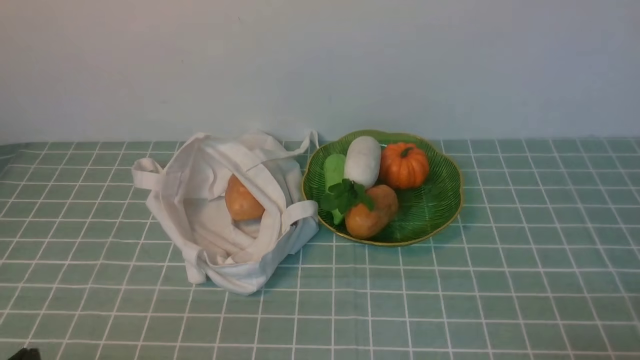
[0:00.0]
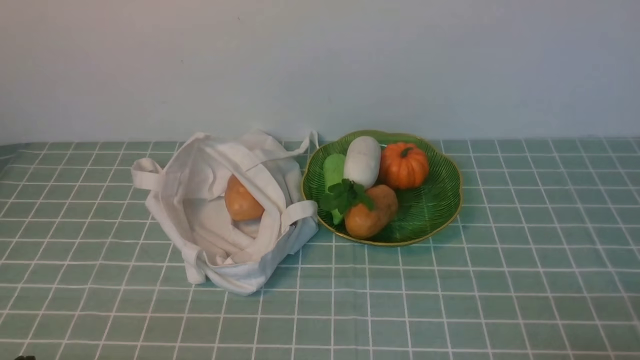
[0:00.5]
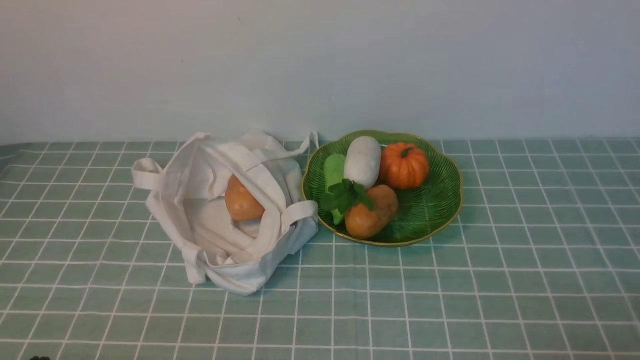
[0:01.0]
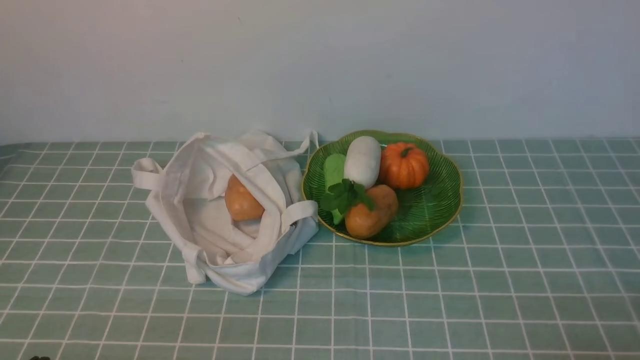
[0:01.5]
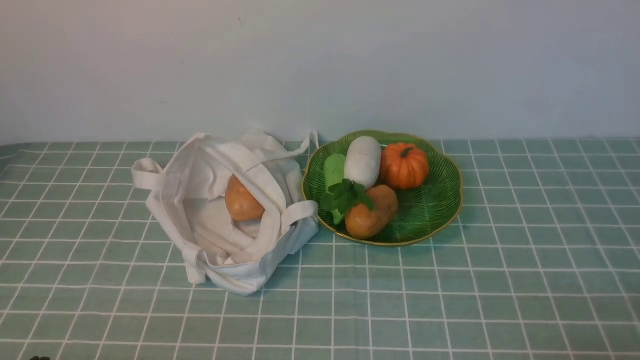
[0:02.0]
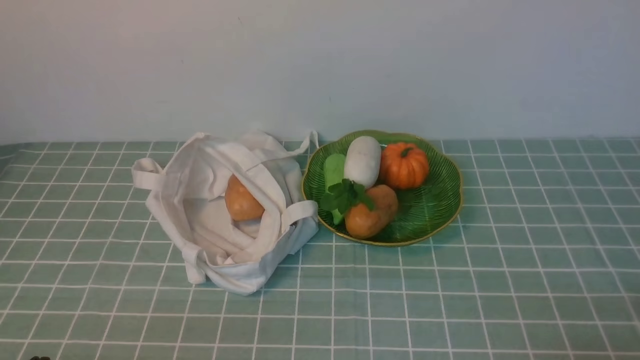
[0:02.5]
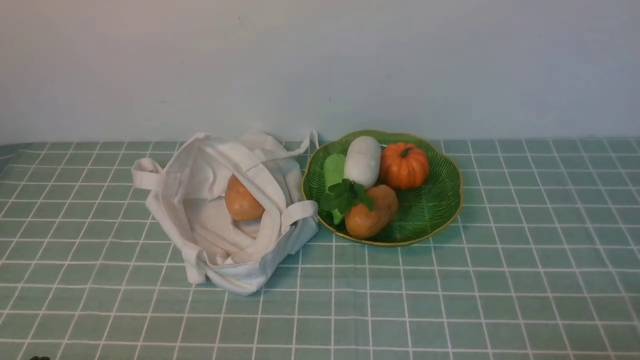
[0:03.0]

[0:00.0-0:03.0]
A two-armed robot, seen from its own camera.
Task of the whole recording: take vegetables from cloth bag on blue coffee tablecloth place on plate.
0:01.5 to 0:03.0: Both grippers stay about where they are.

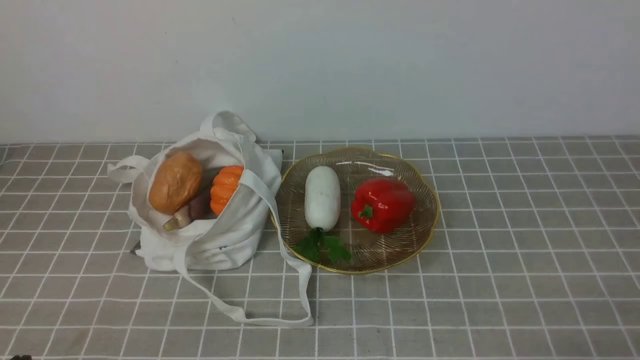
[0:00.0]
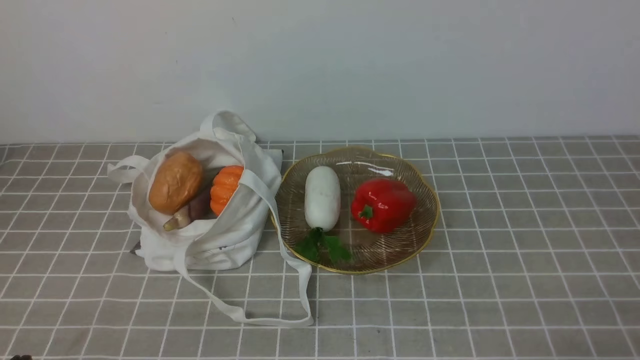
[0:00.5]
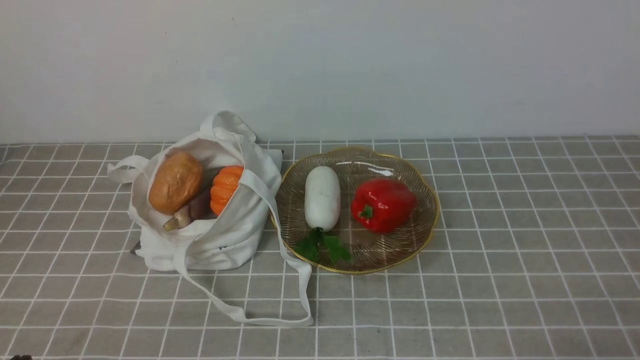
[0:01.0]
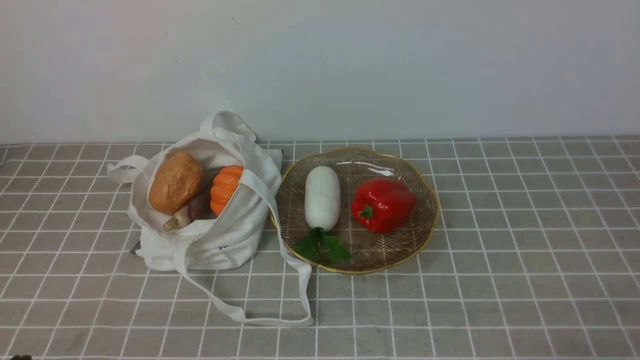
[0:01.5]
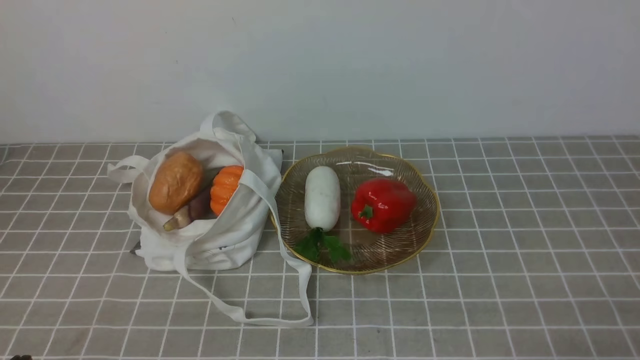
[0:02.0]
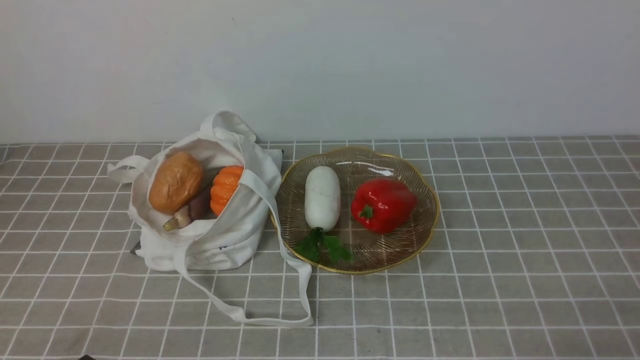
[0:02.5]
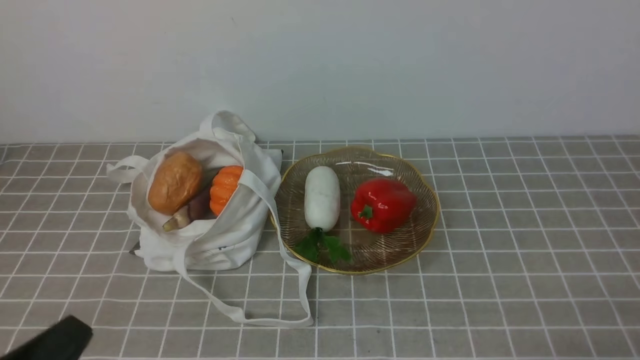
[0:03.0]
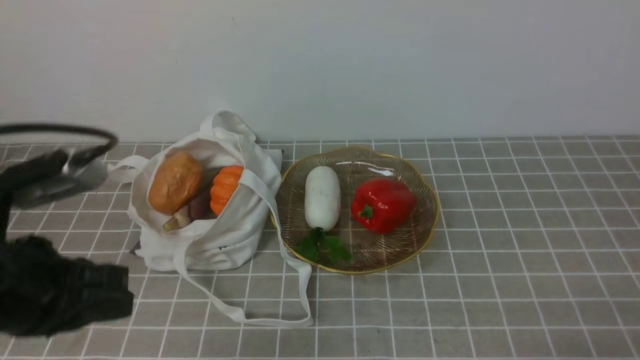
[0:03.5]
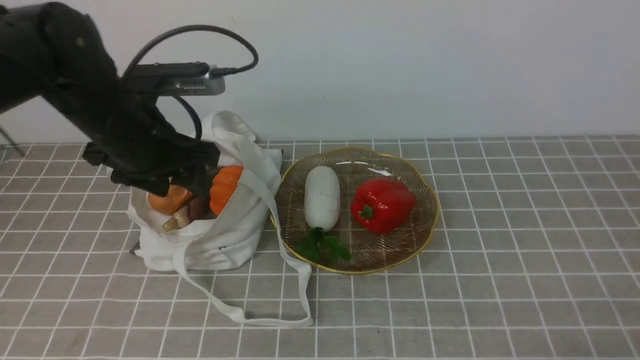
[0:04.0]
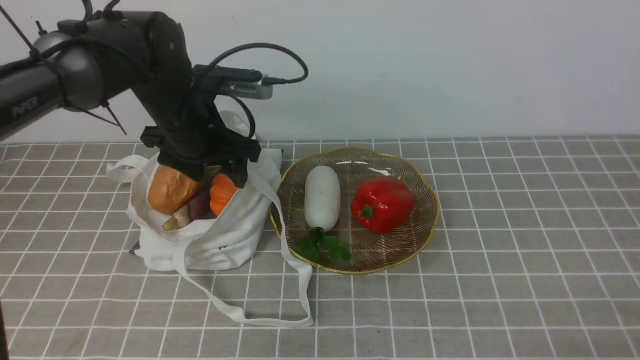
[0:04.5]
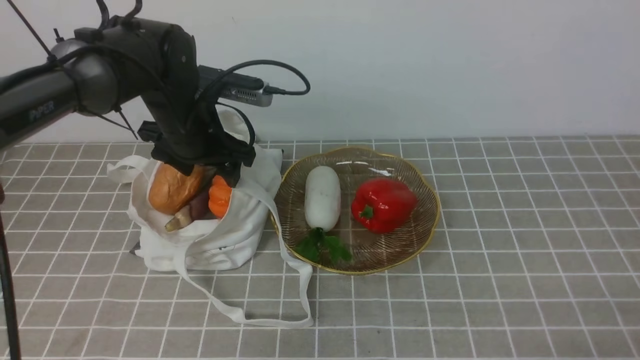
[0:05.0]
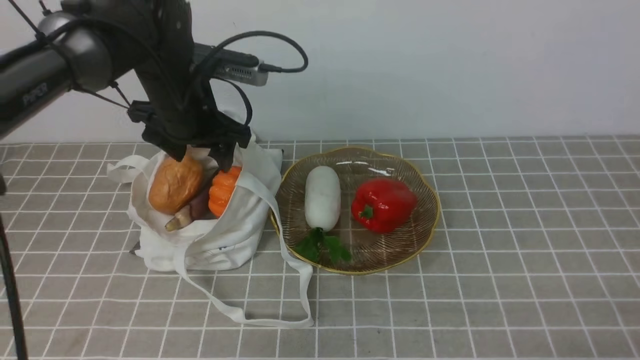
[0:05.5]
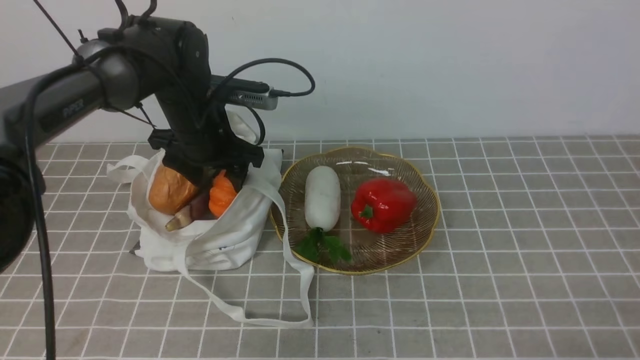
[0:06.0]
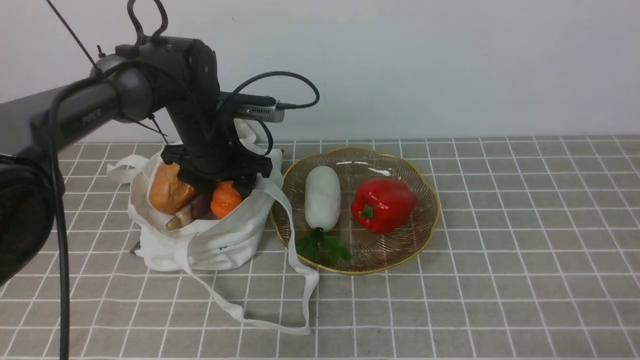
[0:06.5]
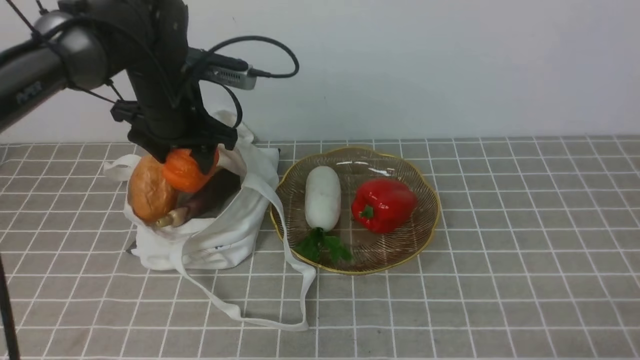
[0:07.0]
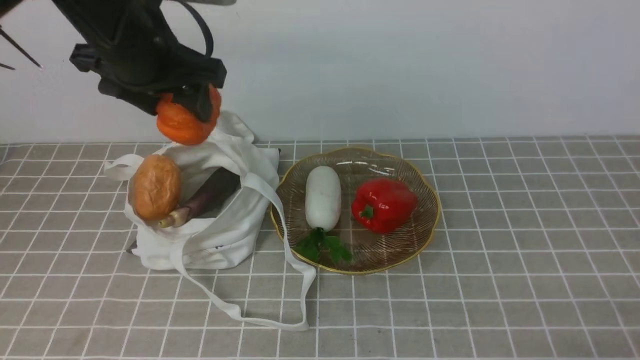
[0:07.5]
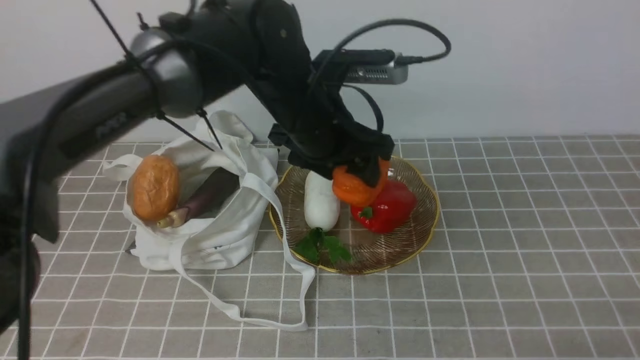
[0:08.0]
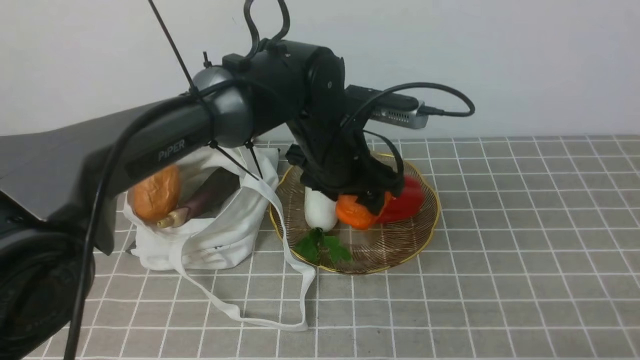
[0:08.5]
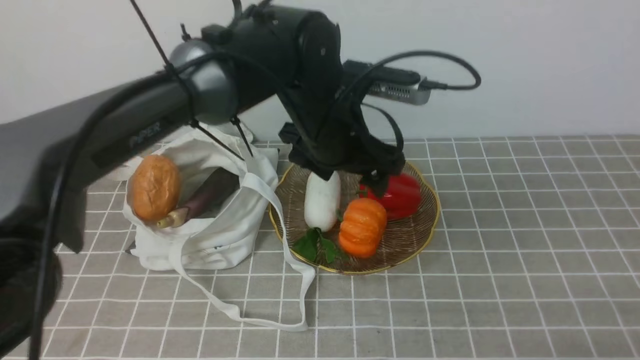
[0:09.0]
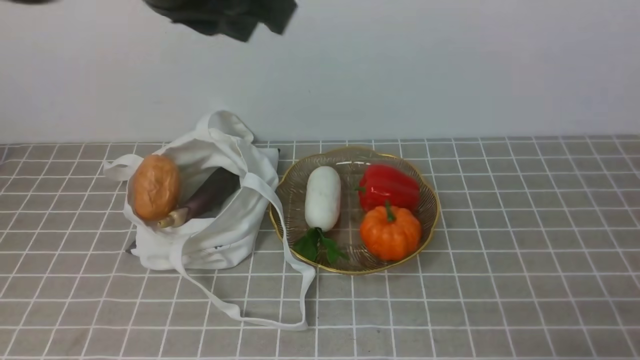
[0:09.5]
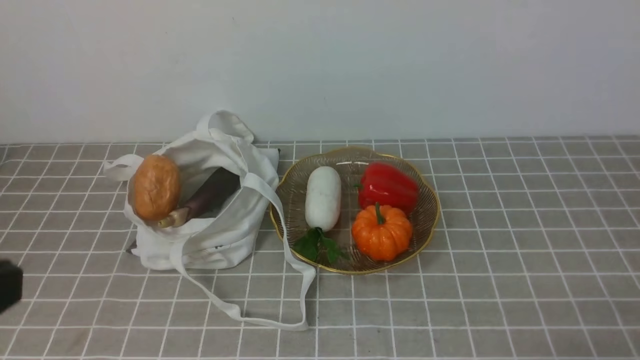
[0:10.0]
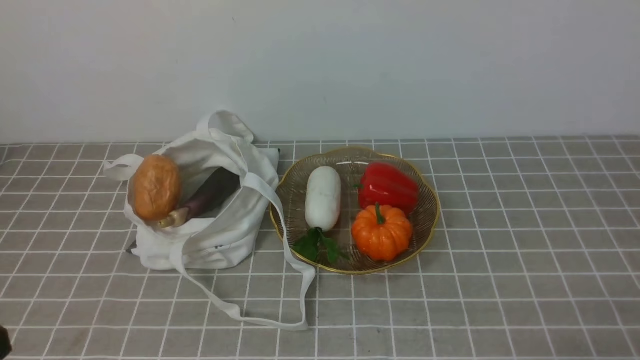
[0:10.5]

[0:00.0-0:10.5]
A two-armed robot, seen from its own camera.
Task of the whole recording: take vegetables from bag on grey coffee tablecloth place on plate.
Step, 0:00.0 to 0:06.5: Grasp the pumpkin with left gripper.
Step, 0:07.0 to 0:09.0: Place the pumpkin on the plate with left gripper.
0:02.0 to 0:04.0: The left gripper goes some 30 cm forward and upward, and opens.
0:04.0 to 0:06.5: The left gripper is displaced forward, downward and to the right by some 15 cm.
0:06.5 to 0:08.5: The left gripper goes approximately 15 cm to the right and backward.
0:08.5 to 0:10.5: The left gripper shifts about 40 cm backward and to the left, and closes its fingers.

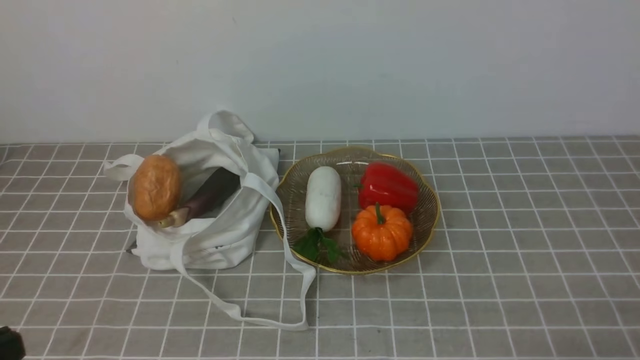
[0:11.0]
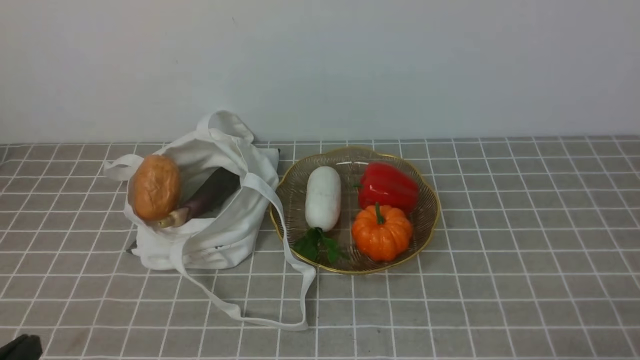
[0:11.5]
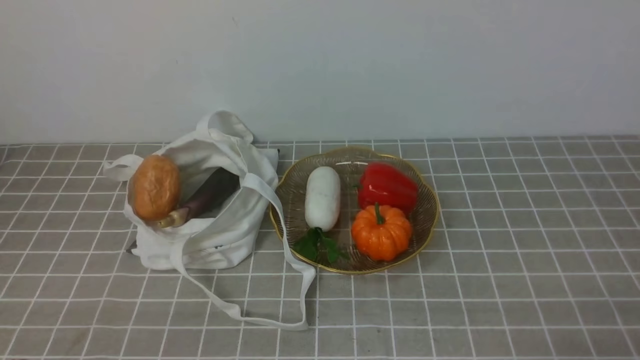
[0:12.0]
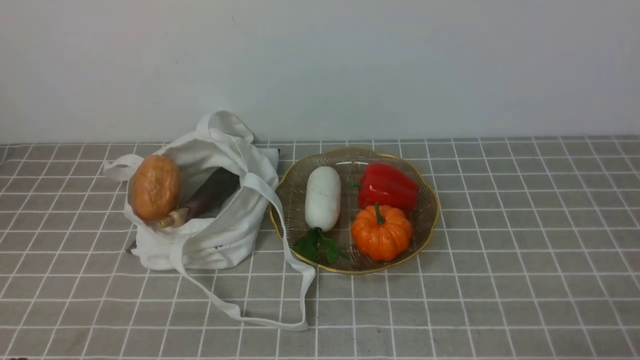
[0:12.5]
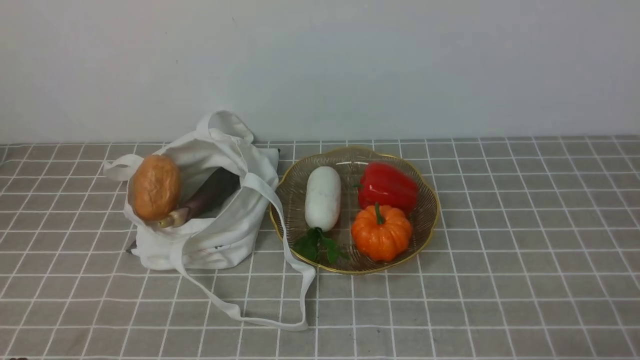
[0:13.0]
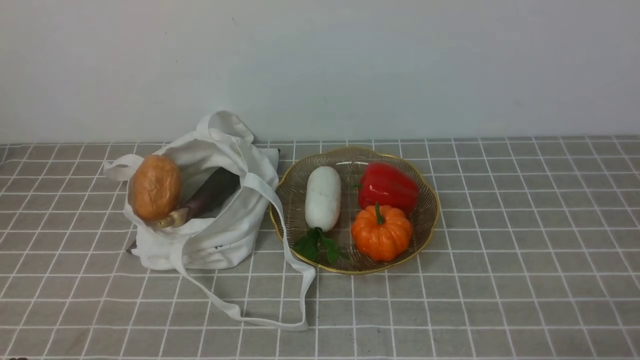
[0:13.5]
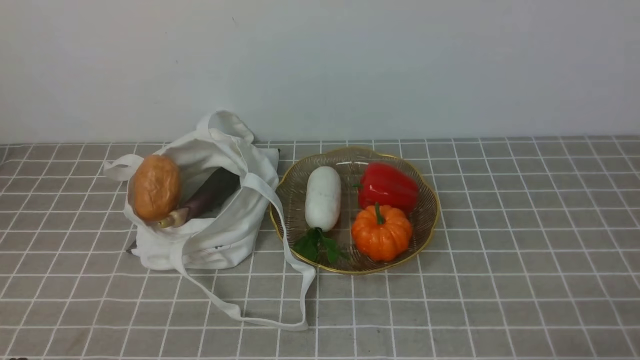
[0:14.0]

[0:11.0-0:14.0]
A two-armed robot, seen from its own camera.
Task of the whole recording: take vegetables from bag on grey coffee tablecloth place on plate.
0:12.5 to 0:14.0: Both grippers stay about where they are.
